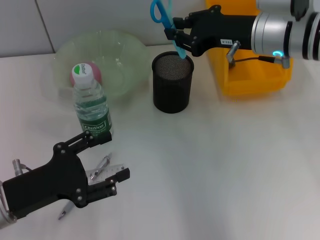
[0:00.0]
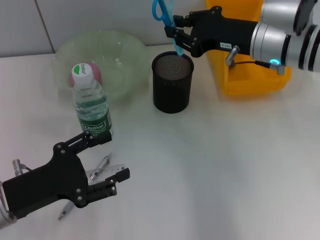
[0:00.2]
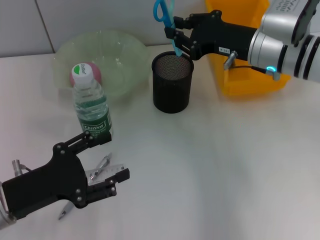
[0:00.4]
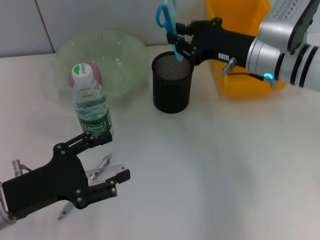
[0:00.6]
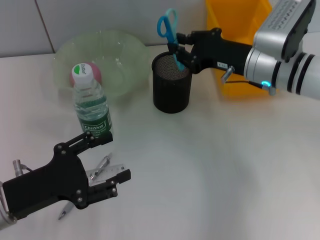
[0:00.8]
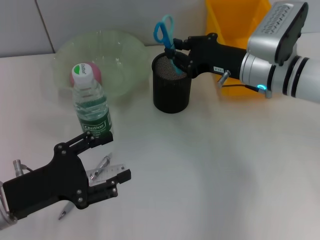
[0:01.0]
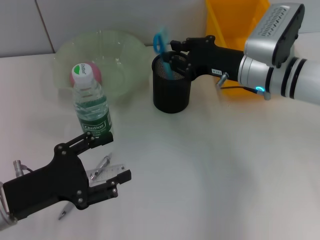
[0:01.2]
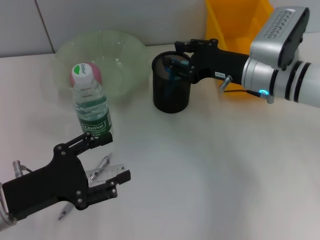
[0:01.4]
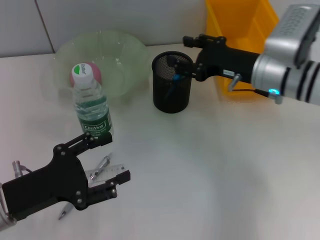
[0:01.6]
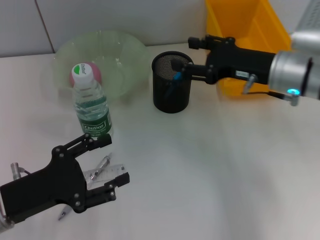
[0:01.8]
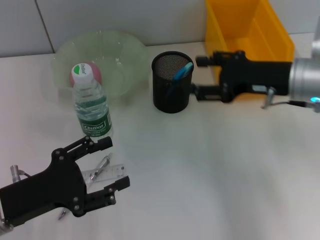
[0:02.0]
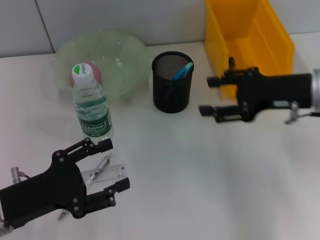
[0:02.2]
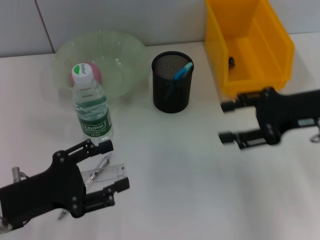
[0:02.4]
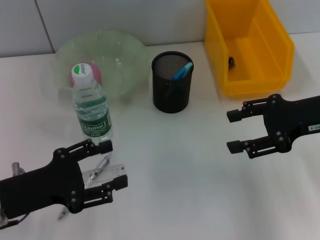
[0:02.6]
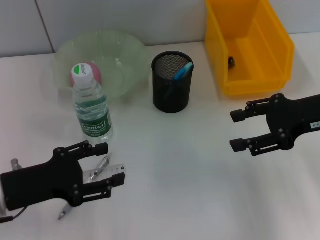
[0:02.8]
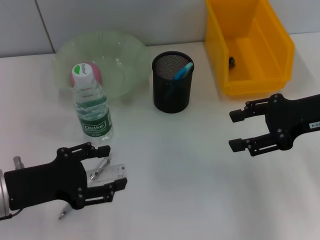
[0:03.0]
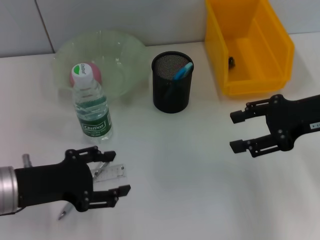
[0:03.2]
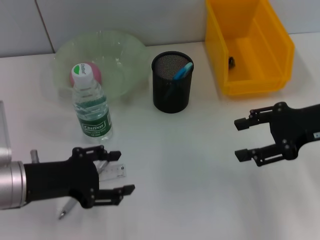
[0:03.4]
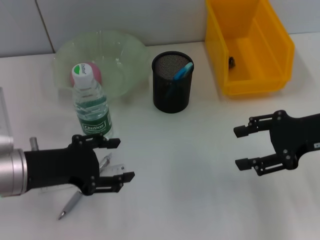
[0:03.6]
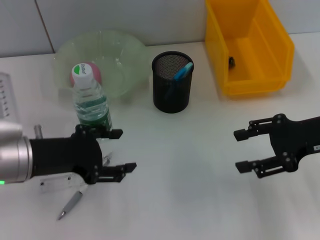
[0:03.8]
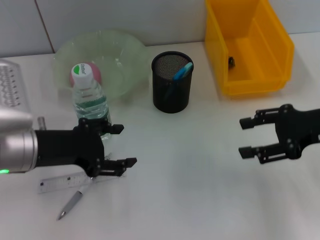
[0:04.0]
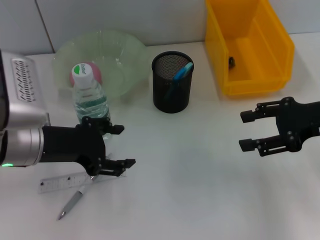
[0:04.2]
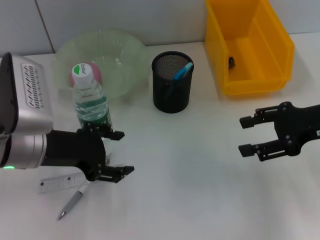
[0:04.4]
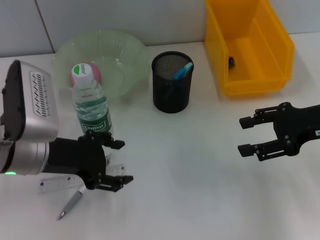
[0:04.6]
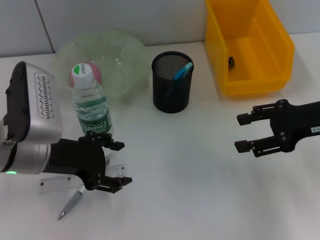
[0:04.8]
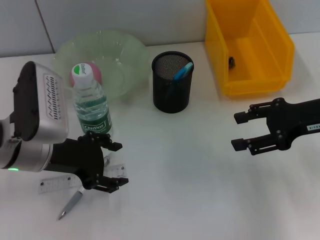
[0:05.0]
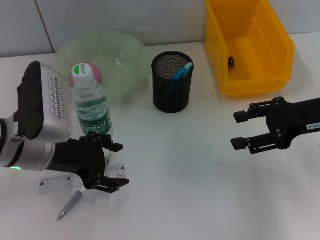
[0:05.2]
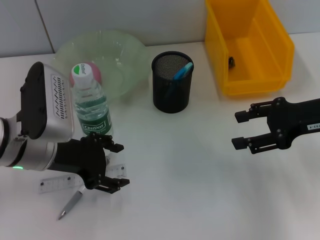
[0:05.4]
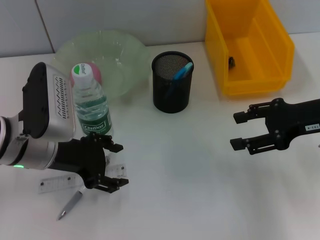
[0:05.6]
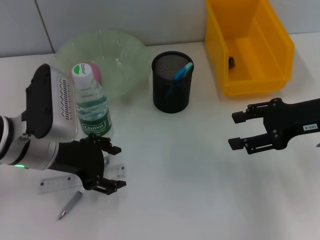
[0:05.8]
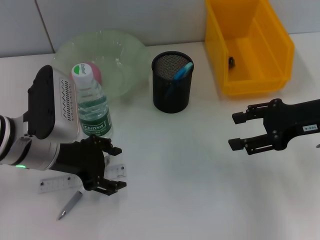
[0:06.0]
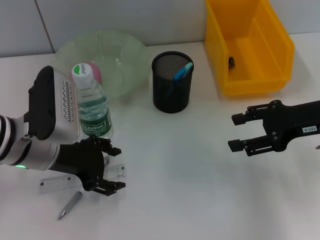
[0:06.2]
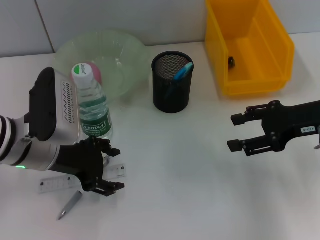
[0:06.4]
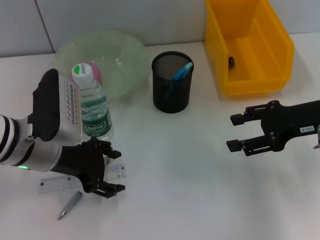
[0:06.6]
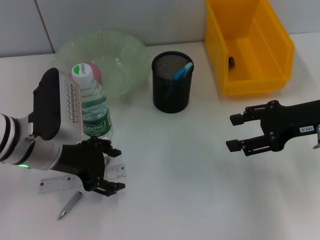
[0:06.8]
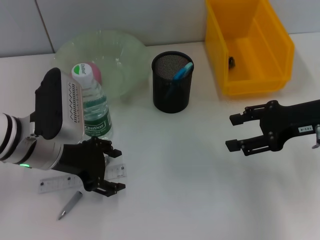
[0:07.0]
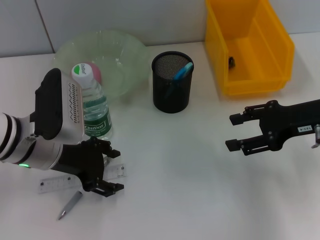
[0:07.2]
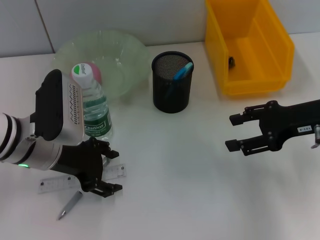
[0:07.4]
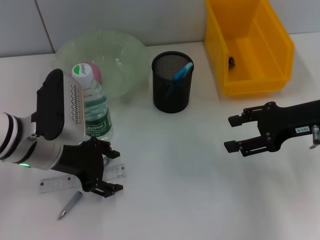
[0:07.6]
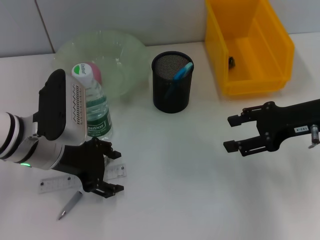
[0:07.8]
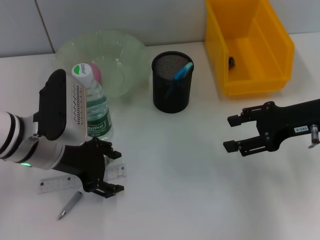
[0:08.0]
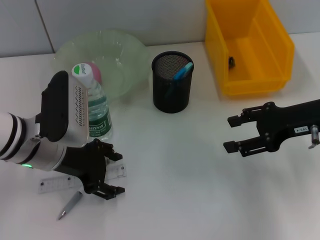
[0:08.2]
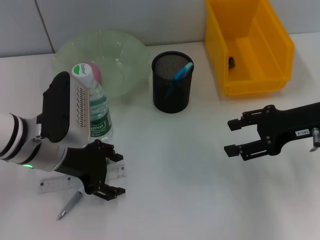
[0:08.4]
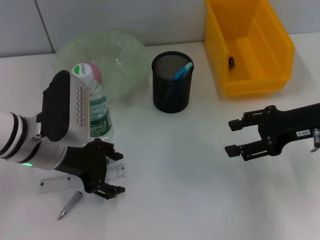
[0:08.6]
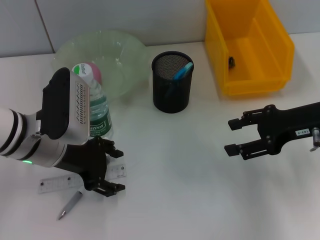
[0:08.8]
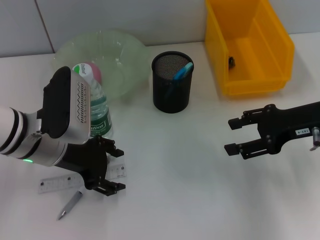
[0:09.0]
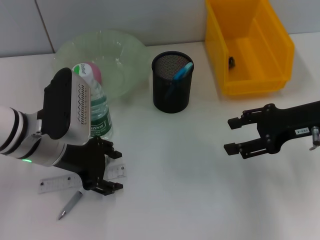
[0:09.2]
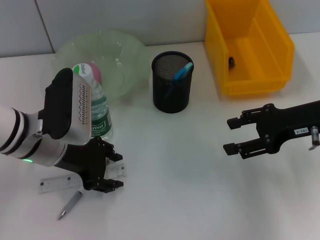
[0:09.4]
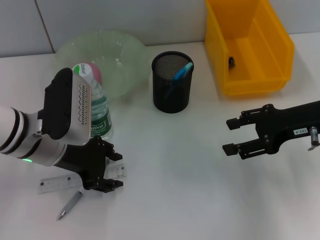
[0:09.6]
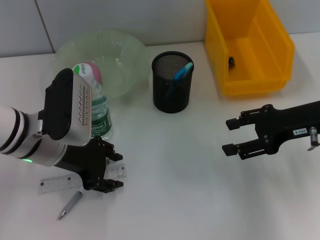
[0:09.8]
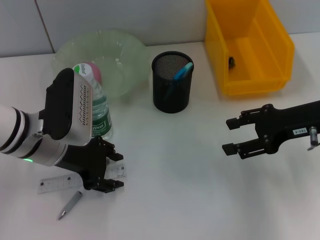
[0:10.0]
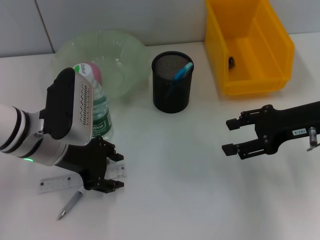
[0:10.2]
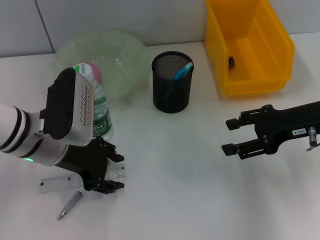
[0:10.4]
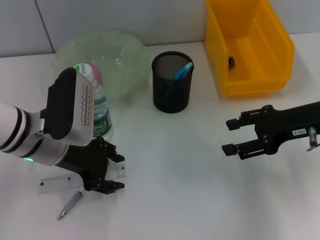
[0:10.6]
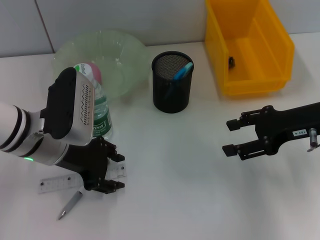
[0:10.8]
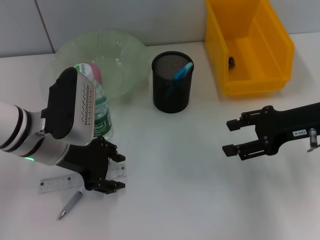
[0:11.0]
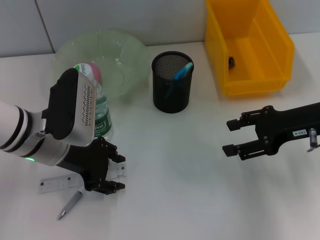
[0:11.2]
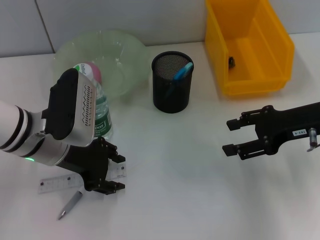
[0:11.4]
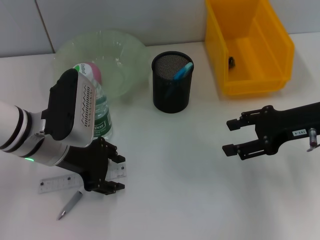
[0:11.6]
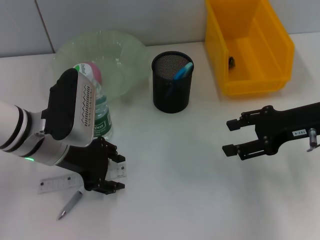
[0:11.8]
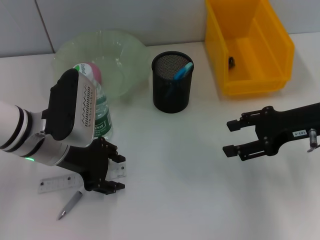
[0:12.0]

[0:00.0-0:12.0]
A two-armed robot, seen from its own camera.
0:00.0 to 0:01.6: The right gripper is displaced downward by roughly 5 cm, and opens up.
0:01.6 to 0:03.0: The right gripper heads to the right and backward, covering approximately 10 cm.
0:03.0 to 0:04.4: The left gripper is displaced forward by roughly 5 cm.
0:04.4 to 0:06.0: The grippers stay close to where they were, moving slightly.
0:06.0 to 0:07.6: The two grippers keep their place.
0:07.6 to 0:09.0: Both grippers stay put.
0:09.0 to 0:12.0: Both grippers stay about where they are.

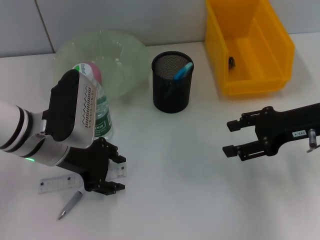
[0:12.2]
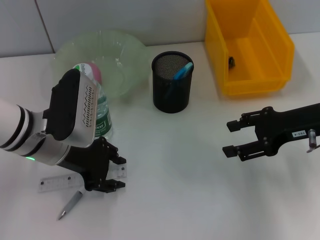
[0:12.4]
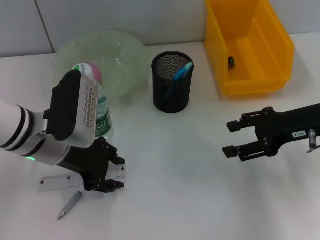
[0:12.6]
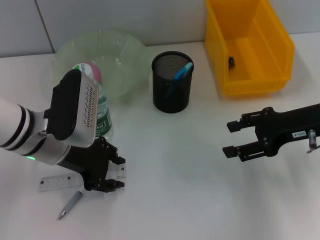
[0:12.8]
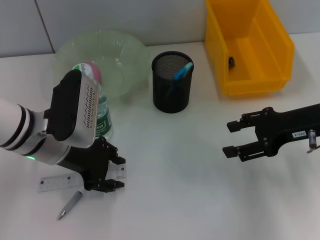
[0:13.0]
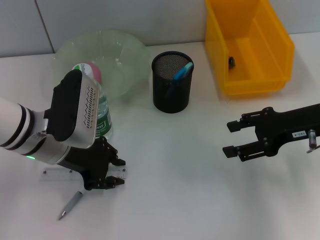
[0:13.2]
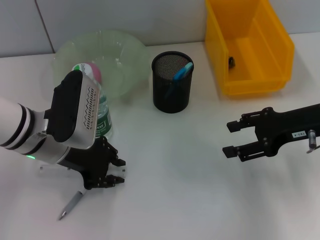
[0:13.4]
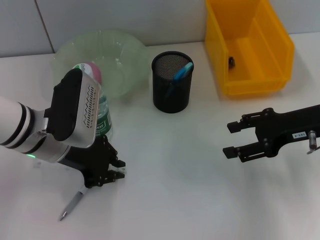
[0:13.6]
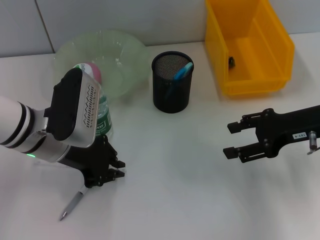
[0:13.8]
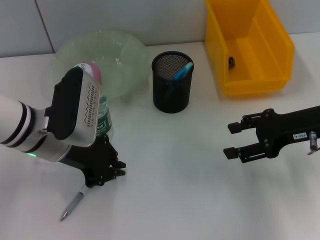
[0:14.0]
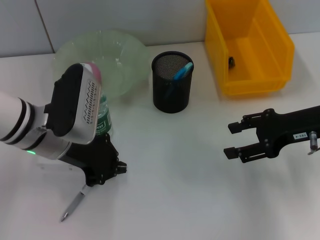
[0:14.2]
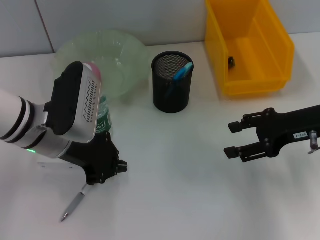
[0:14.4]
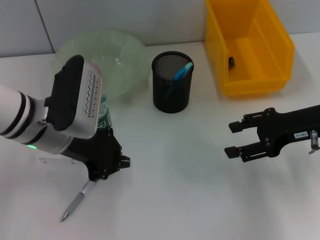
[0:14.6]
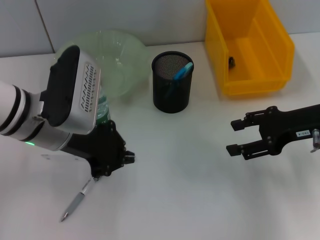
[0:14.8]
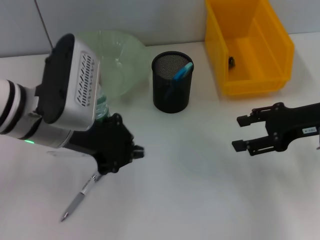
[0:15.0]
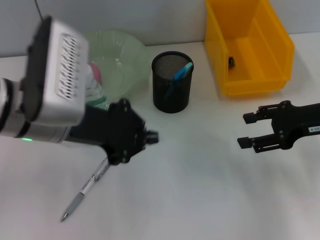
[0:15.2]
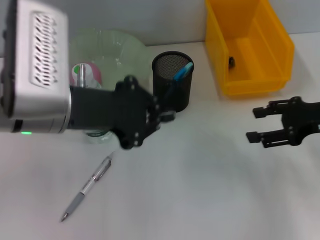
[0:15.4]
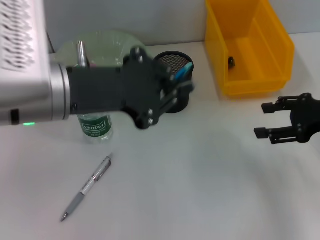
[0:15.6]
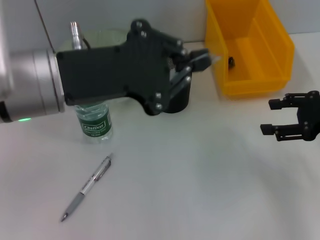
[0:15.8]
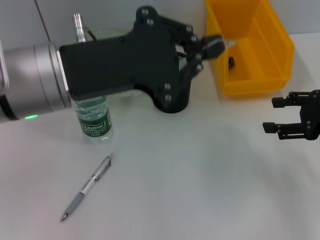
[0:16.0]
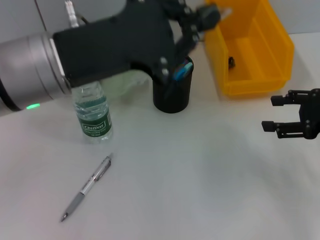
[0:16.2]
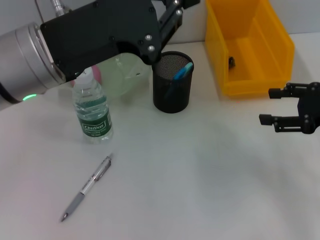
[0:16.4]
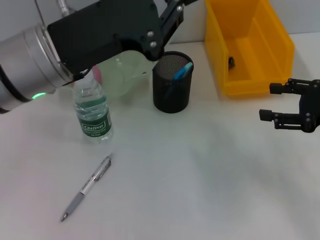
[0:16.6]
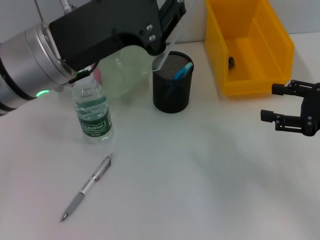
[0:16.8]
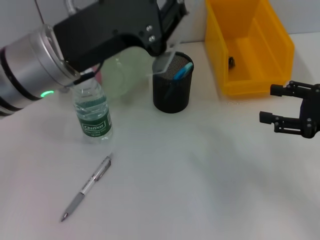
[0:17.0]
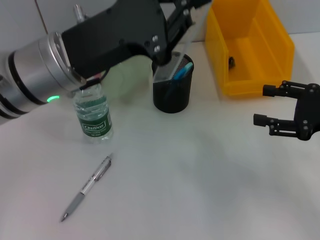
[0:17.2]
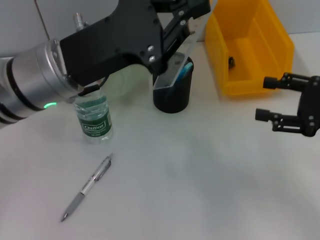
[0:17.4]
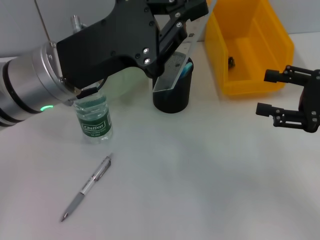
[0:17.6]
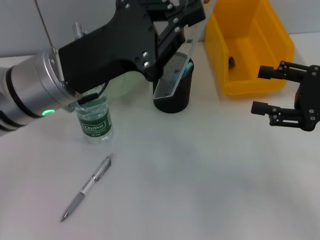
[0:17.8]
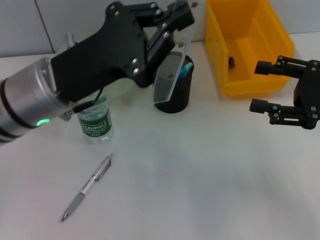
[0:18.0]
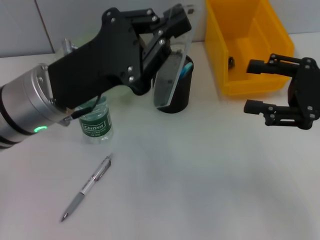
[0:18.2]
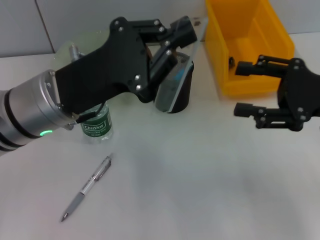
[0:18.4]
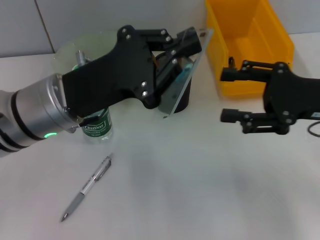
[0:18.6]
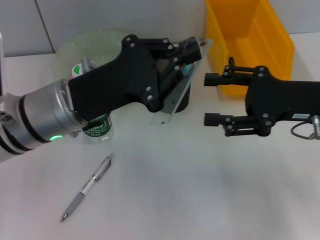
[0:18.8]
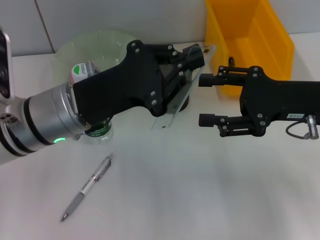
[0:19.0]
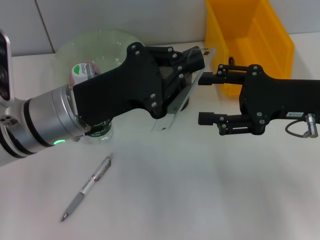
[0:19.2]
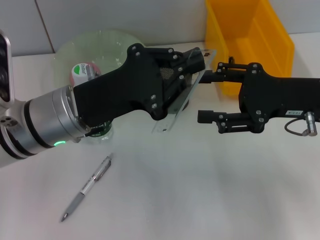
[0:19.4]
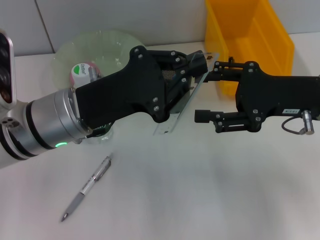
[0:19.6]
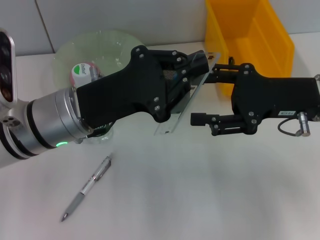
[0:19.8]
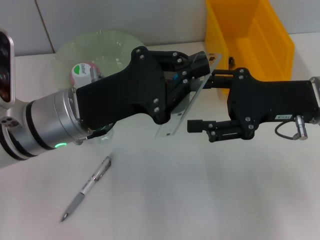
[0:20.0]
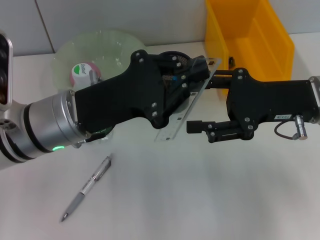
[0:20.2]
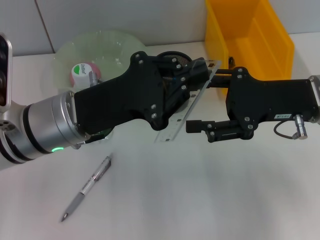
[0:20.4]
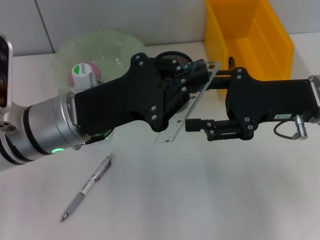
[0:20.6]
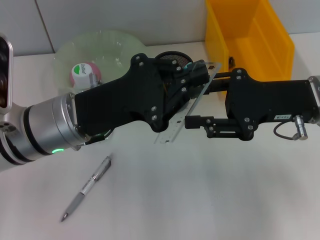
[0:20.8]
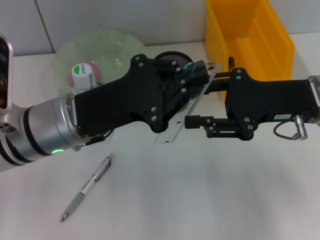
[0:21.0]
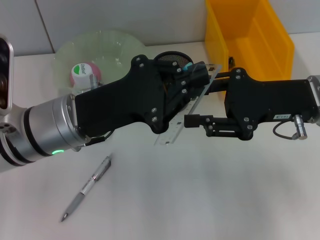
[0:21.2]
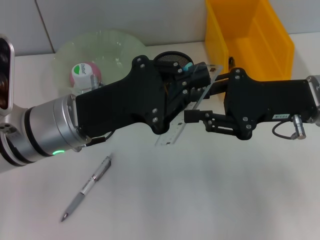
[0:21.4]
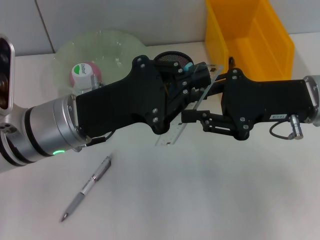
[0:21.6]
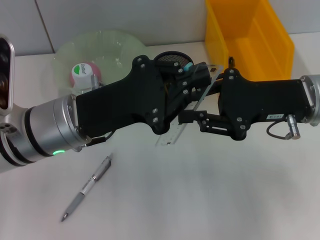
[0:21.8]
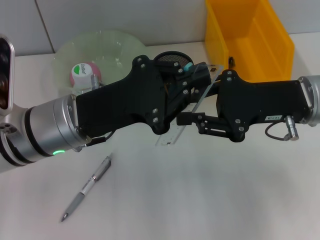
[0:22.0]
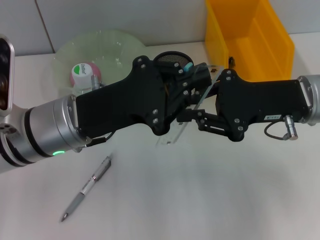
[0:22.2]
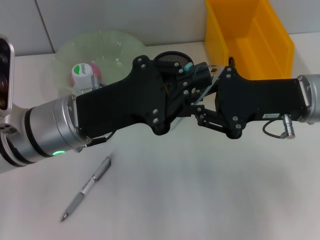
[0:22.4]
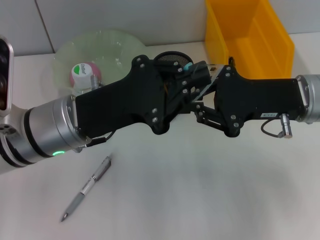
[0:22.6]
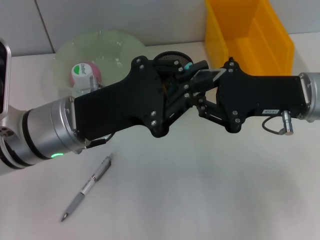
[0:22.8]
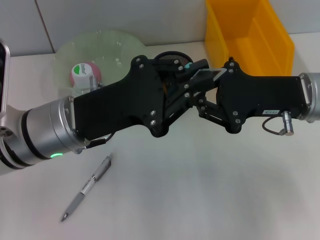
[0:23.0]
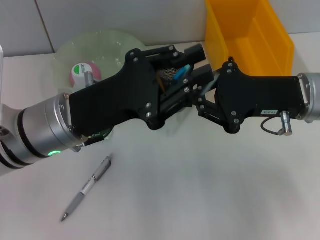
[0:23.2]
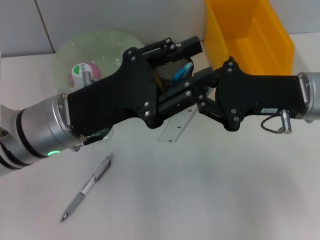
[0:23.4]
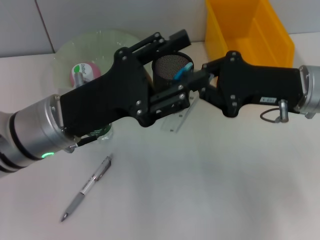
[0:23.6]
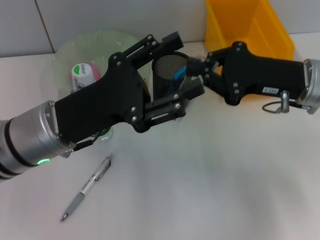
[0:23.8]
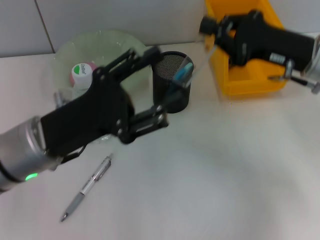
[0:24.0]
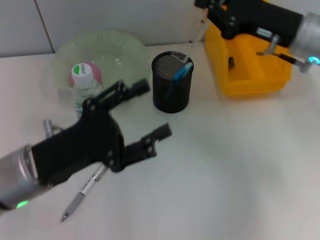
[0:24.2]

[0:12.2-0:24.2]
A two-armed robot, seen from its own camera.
Step, 0:12.2 to 0:14.4: Grab the ruler with the left hand.
Step, 0:14.6 to 0:23.2: Pass the ruler from the left hand to the right hand.
0:12.2 to 0:13.8: The left gripper closes its fingers.
0:13.8 to 0:15.2: The left gripper moves upward, approximately 10 cm.
0:16.6 to 0:18.2: The left gripper heads downward, covering about 5 cm.
0:18.2 to 0:19.8: The right gripper moves to the left, roughly 5 cm.
0:19.8 to 0:21.2: Both grippers stay put.
0:21.2 to 0:22.6: The right gripper closes its fingers.
0:22.6 to 0:24.2: The left gripper changes place by about 5 cm, and opens up, while the right gripper travels forward by approximately 5 cm.
